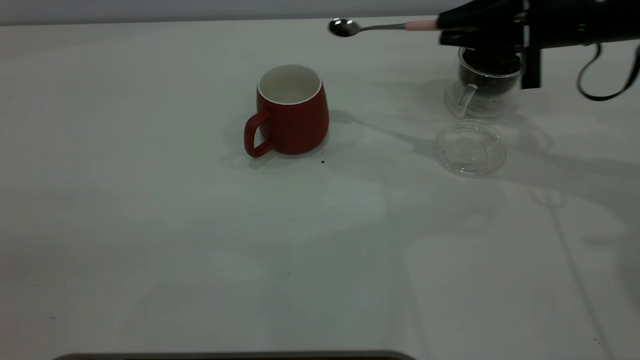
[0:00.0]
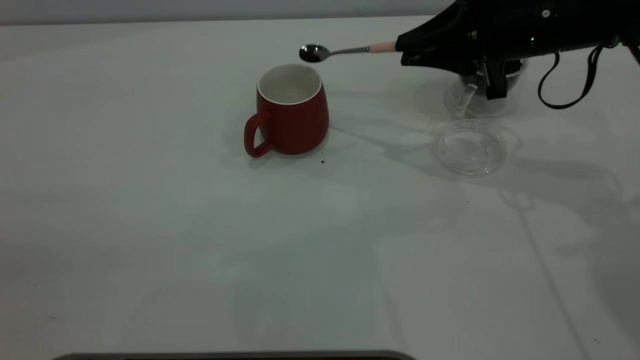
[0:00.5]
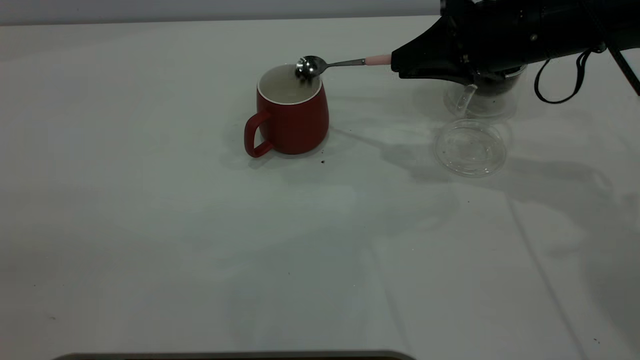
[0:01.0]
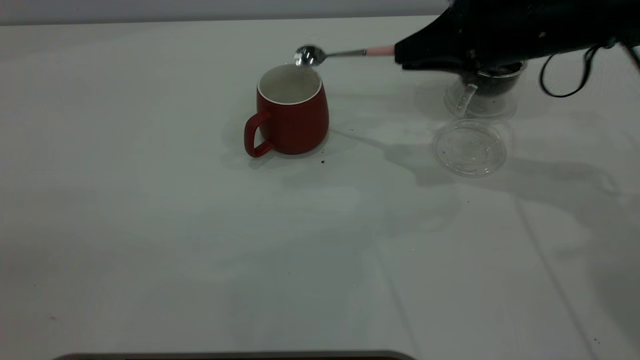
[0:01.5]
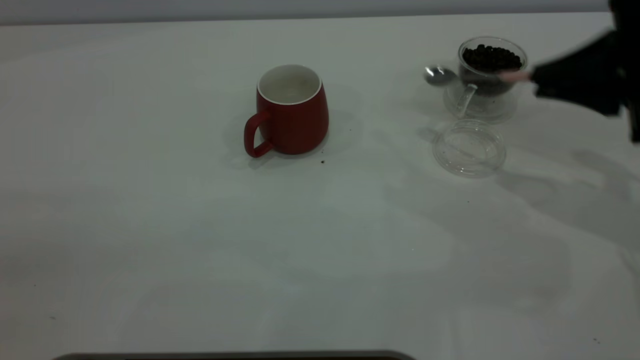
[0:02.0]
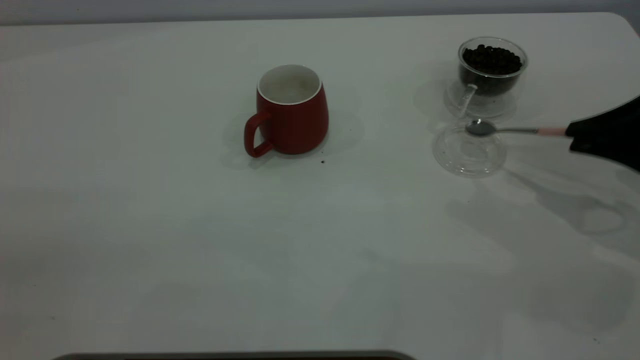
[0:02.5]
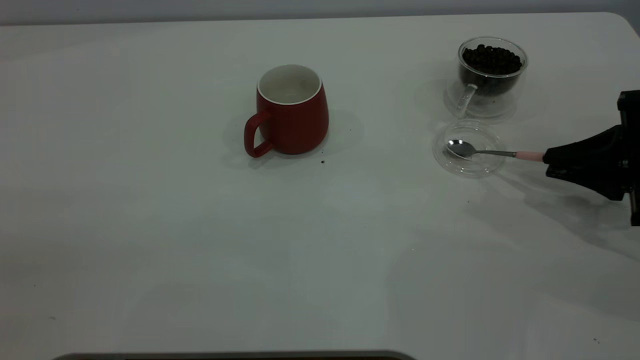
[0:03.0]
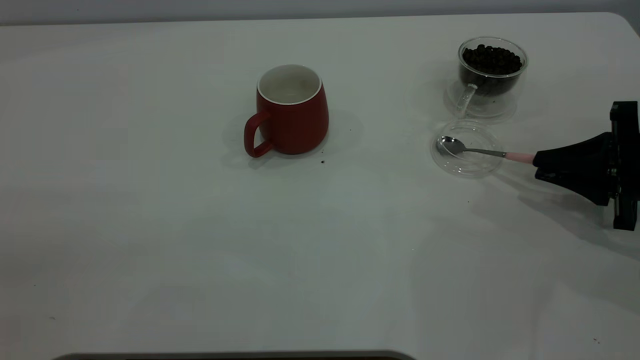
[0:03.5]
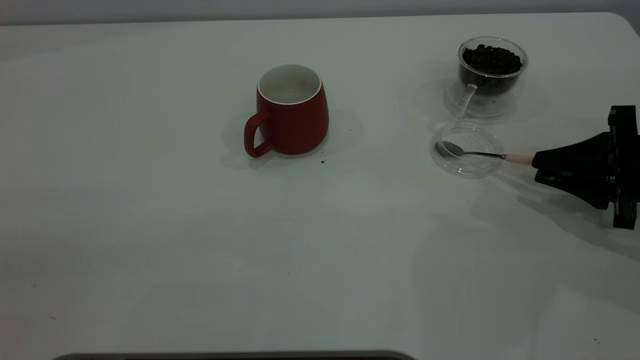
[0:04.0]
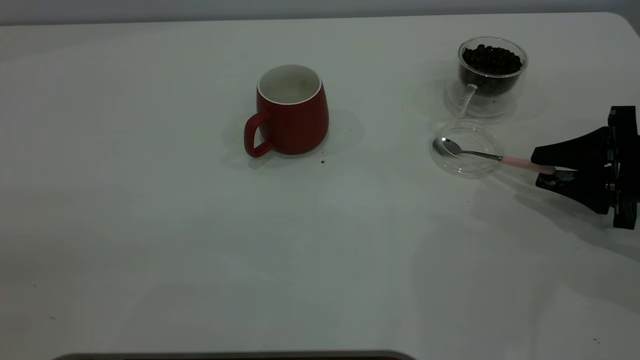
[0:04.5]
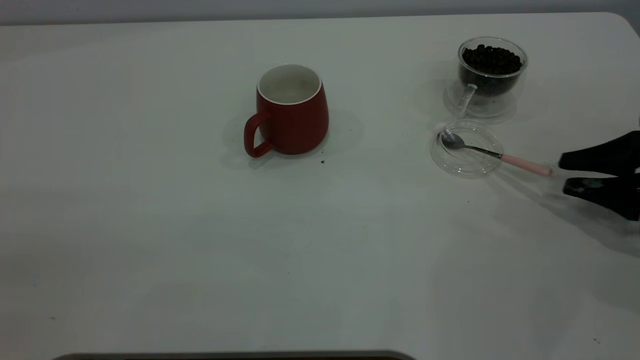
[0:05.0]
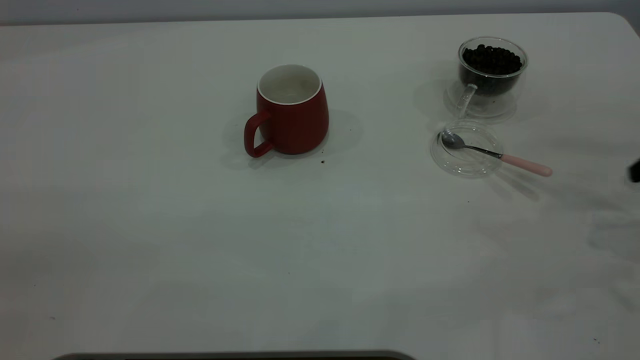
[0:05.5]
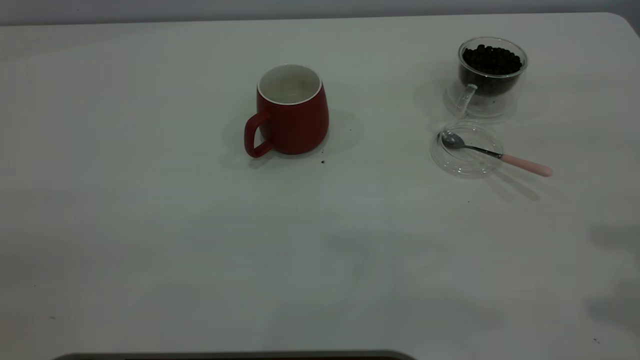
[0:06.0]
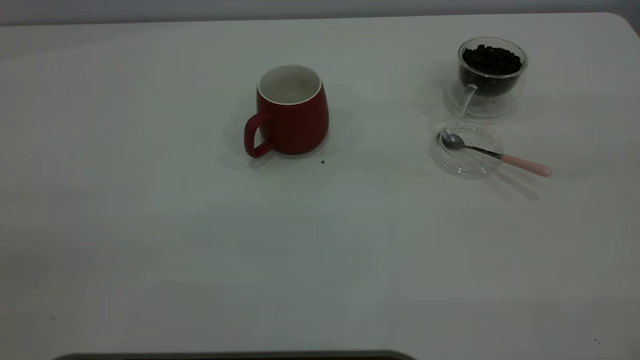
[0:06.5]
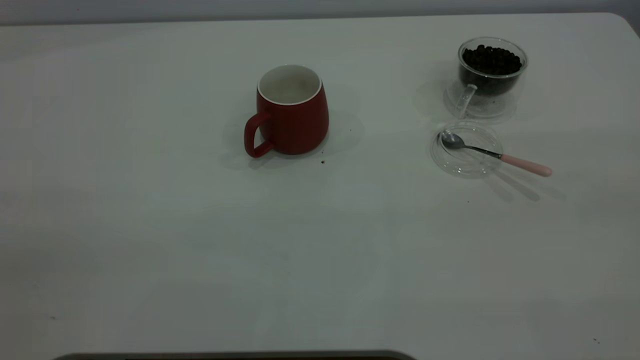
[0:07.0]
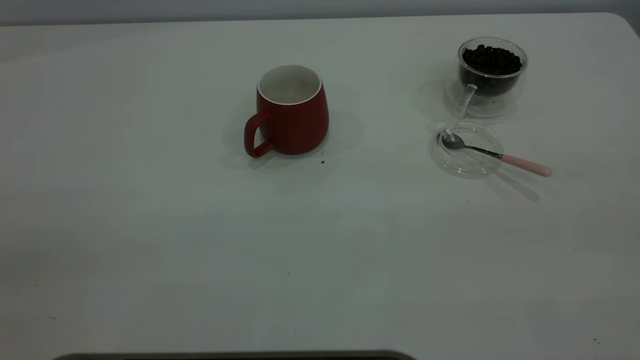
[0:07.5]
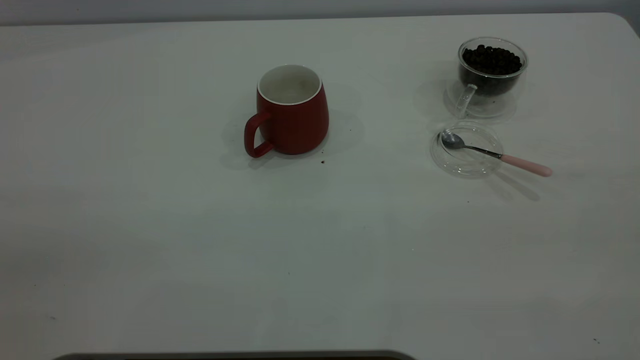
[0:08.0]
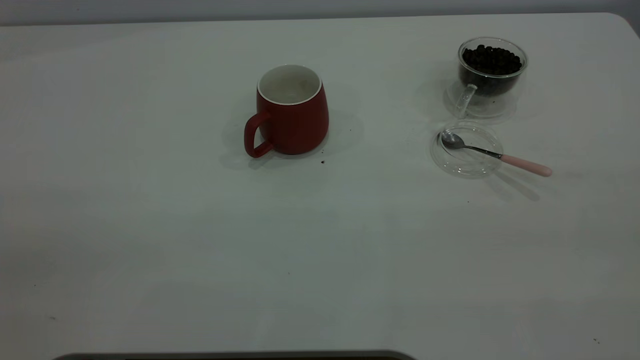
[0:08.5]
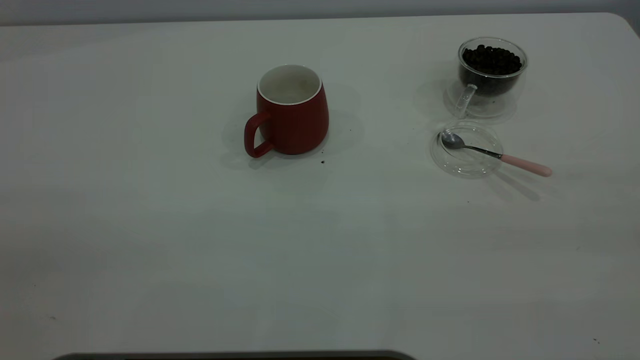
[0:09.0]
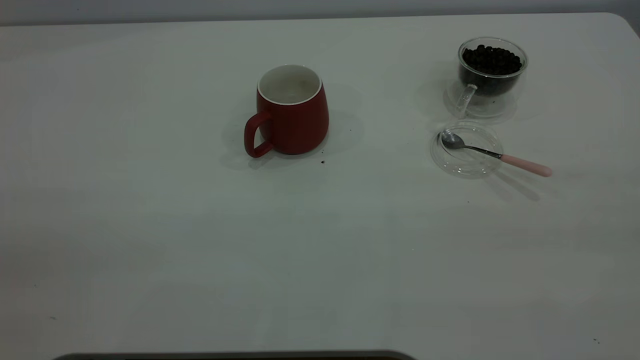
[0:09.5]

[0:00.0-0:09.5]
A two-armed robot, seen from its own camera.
Task of the whole recording: the left gripper place the red cup in the center of the table, the right gripper take the pink spoon from the cup lid and scoop out the coffee beans from the coffee cup and put them into the red cup, the right gripper put the spoon back into the cup lid.
Step, 0:02.0 to 0:04.5: Place the spoon back in its original place.
0:00.0 to 0:02.0: The right gripper is displaced backward and to the right by roughly 10 cm.
0:02.0 to 0:04.0: The right gripper is displaced downward by roughly 10 cm.
0:04.0 to 0:05.5: The right gripper shifts roughly 10 cm upward.

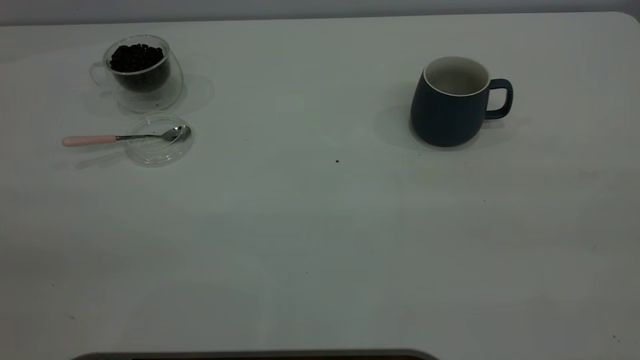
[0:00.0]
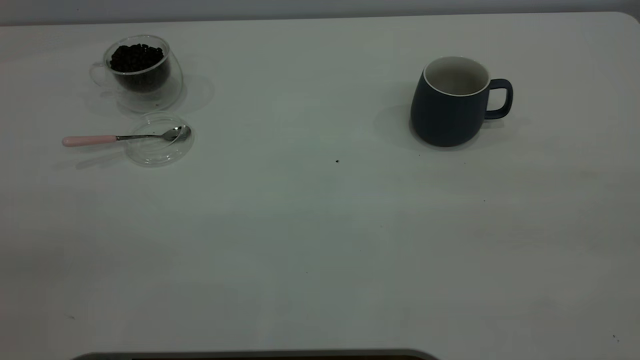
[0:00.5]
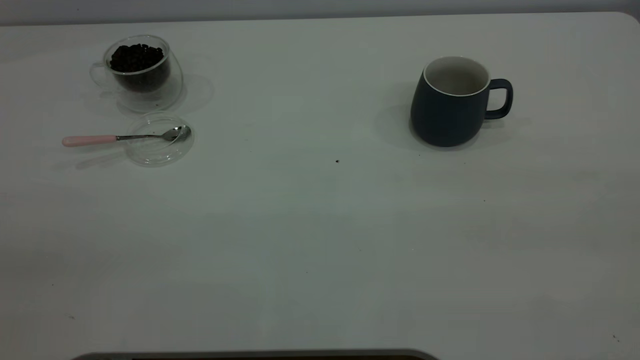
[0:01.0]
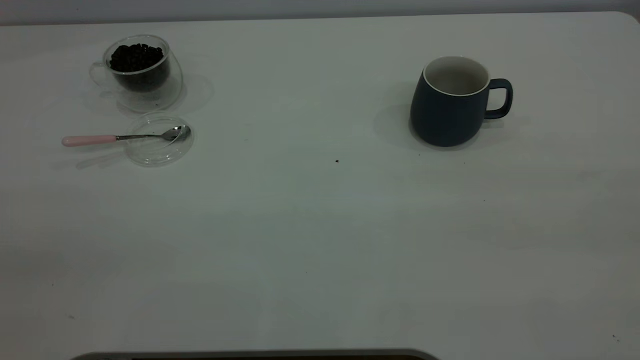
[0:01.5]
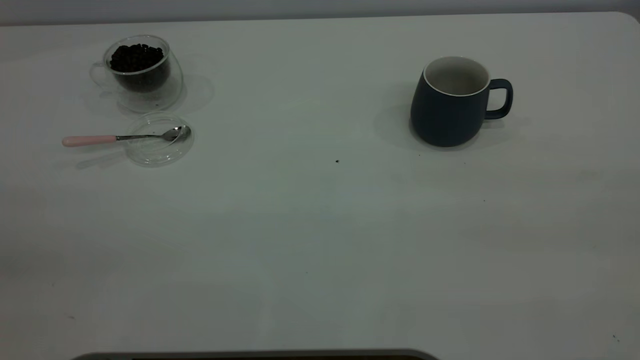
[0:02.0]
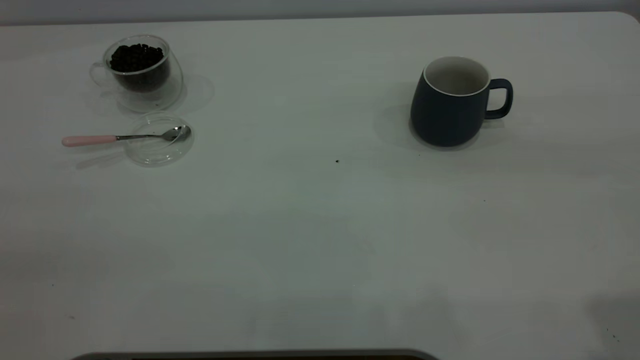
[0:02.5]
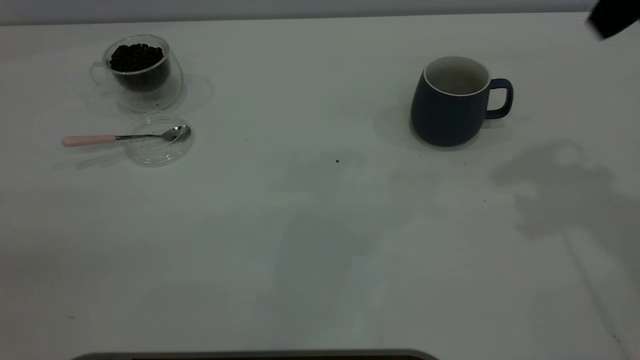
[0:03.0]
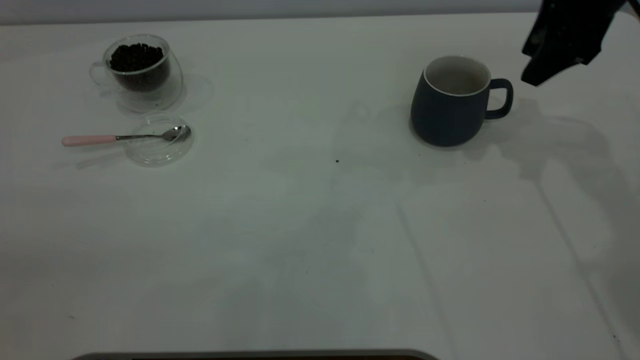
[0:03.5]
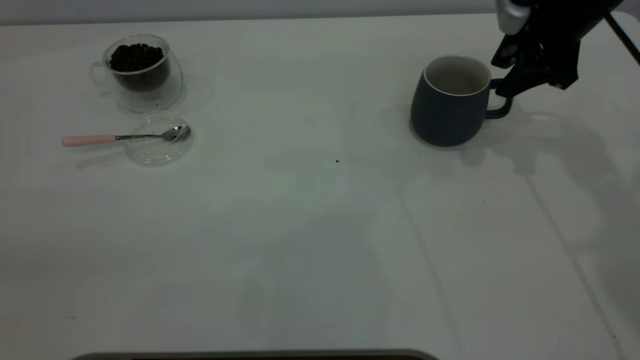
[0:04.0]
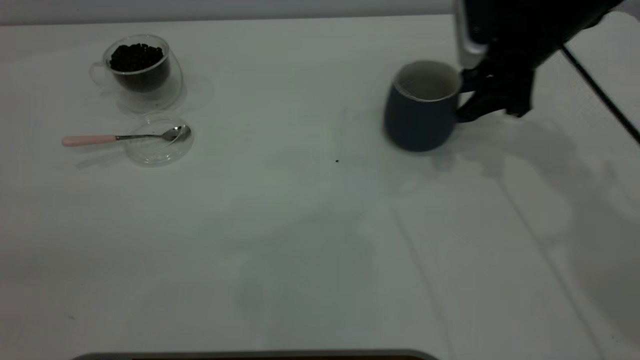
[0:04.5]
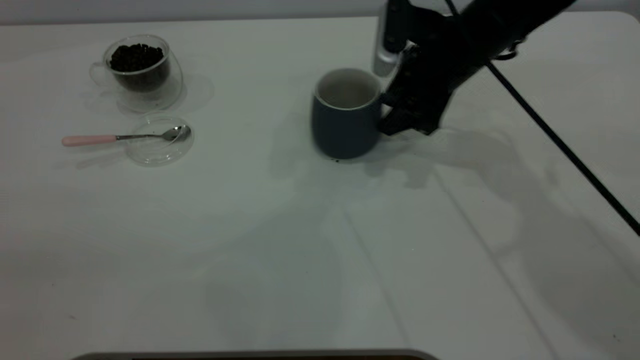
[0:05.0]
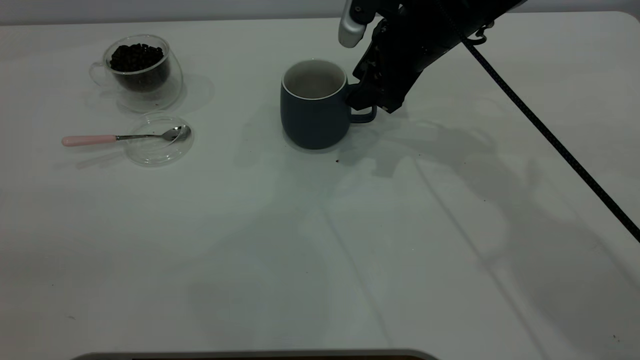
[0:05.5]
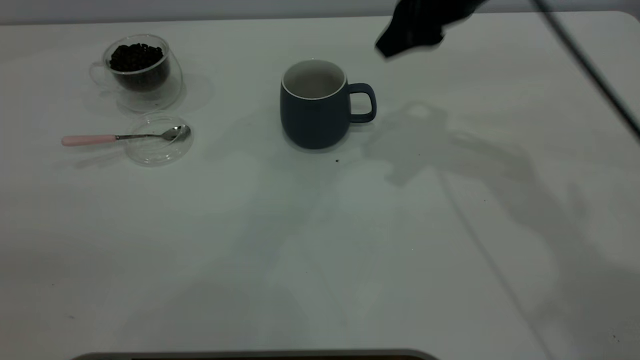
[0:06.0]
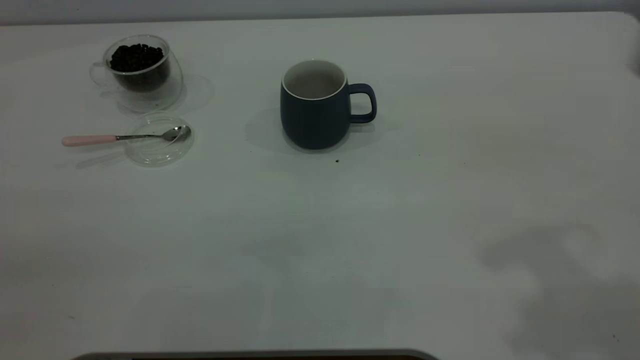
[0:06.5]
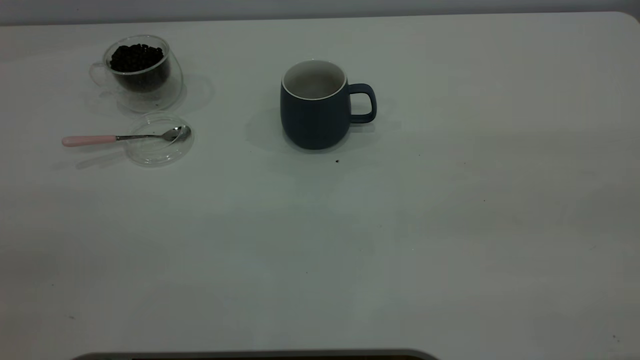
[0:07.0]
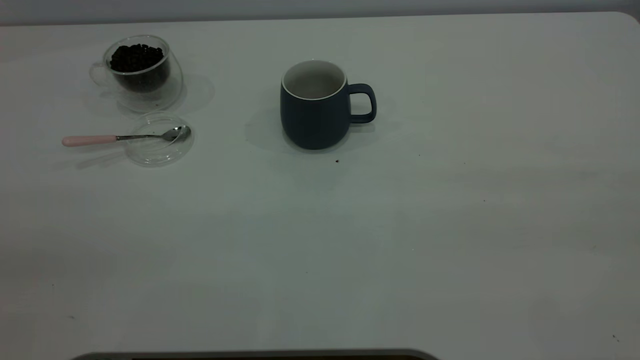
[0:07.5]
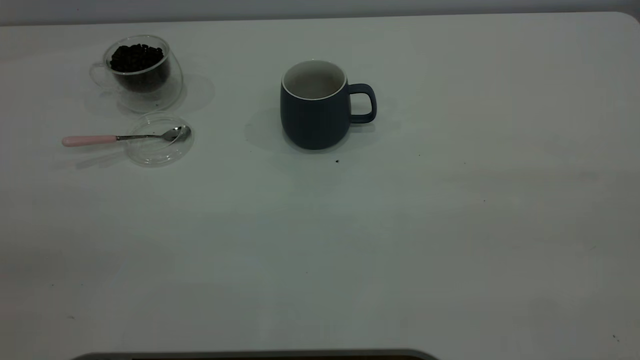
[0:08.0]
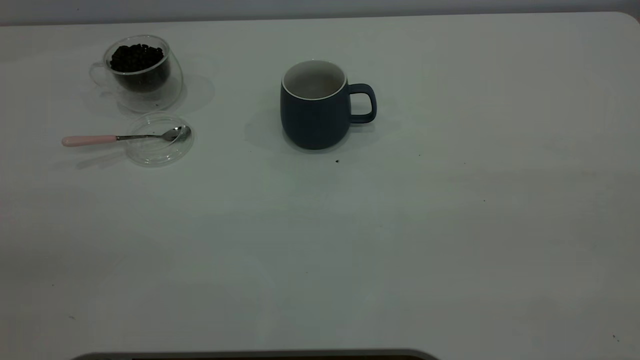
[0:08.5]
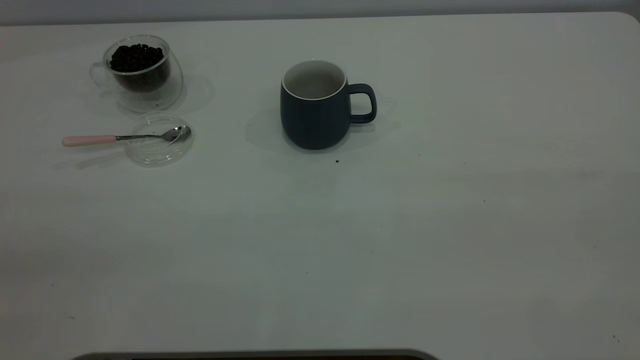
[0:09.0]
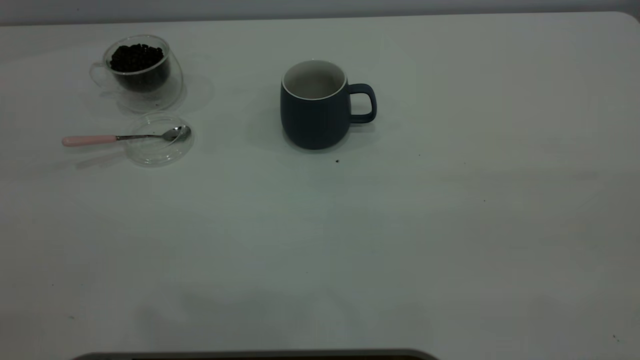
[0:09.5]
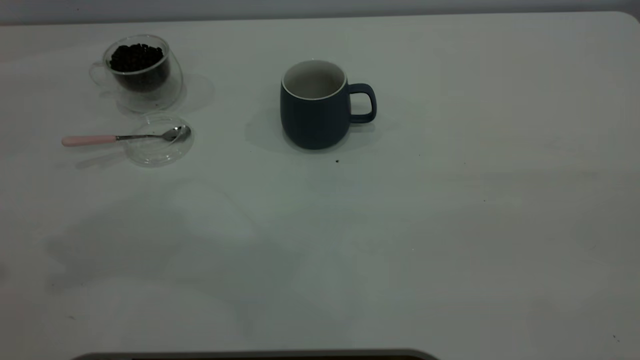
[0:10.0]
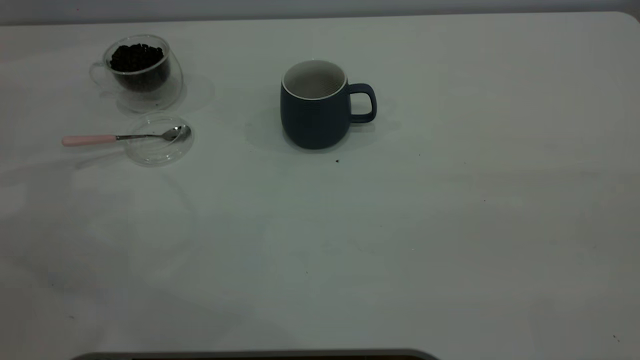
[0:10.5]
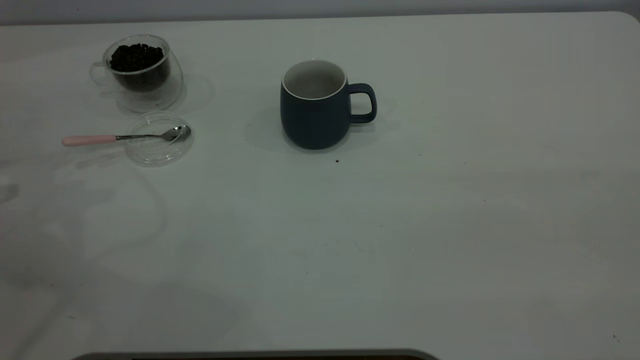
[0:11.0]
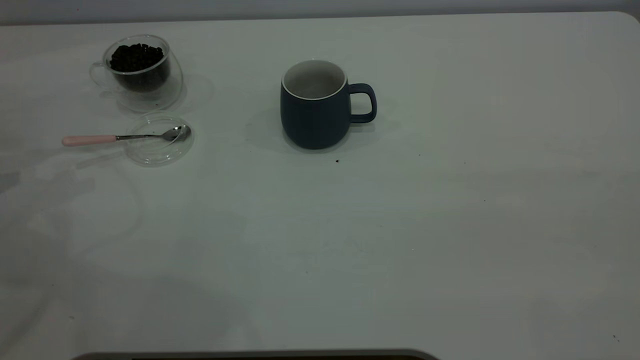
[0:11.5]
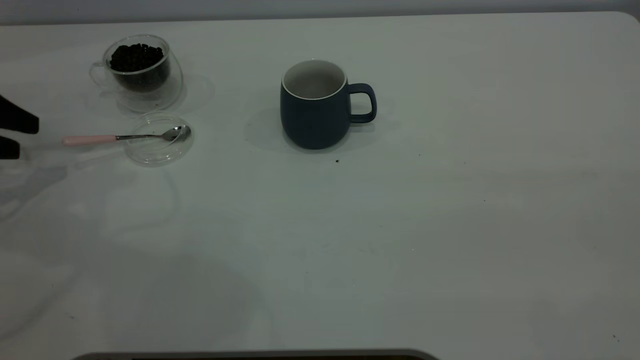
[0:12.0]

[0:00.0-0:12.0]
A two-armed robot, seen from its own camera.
Task of the whole recording: the right gripper place the grey cup in the center of the table, the left gripper take the pink spoon from the cup lid and scoop out the coffee beans from the coffee cup and put them into the grey cup, the left gripper put the spoon back into the cup lid.
Step, 0:00.0 to 0:05.5: Move the cup to the center of view.
0:00.0 to 0:02.0: Both grippers stay put.
0:02.0 to 0:04.0: The right gripper shifts approximately 50 cm forward and downward, and opens and closes again.
0:04.0 to 0:06.0: The right gripper travels to the left, upward and backward by approximately 15 cm.
0:06.0 to 0:08.0: The right gripper is displaced backward and to the right by roughly 40 cm.
0:10.0 to 0:12.0: The left gripper goes some 20 cm downward, and opens up.
